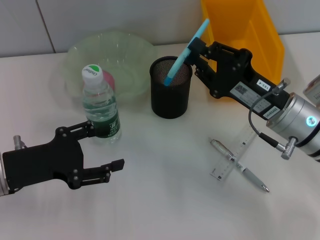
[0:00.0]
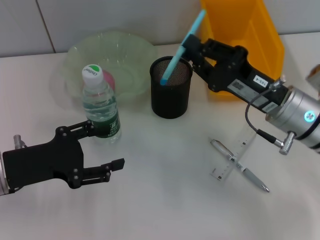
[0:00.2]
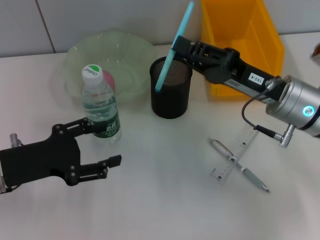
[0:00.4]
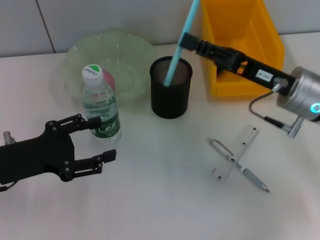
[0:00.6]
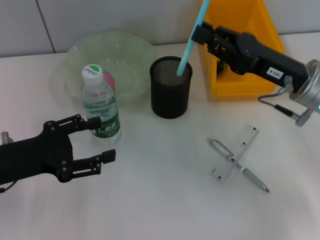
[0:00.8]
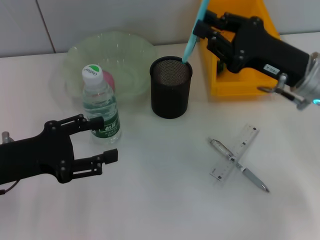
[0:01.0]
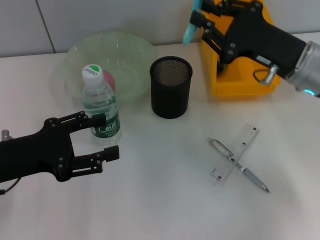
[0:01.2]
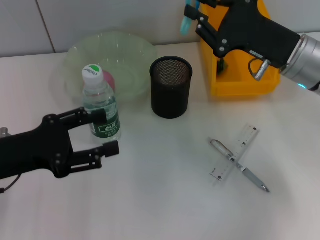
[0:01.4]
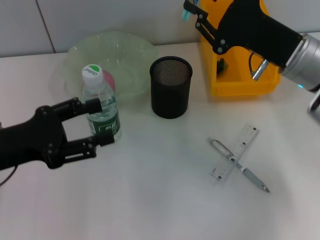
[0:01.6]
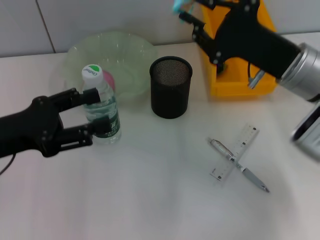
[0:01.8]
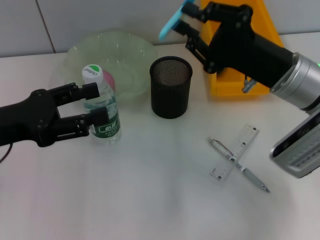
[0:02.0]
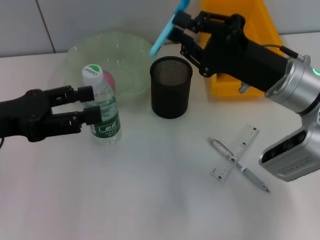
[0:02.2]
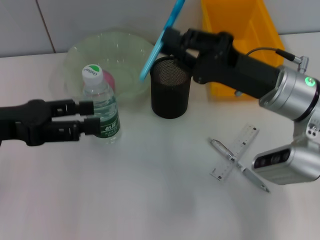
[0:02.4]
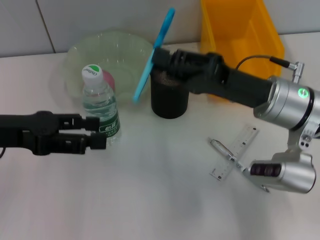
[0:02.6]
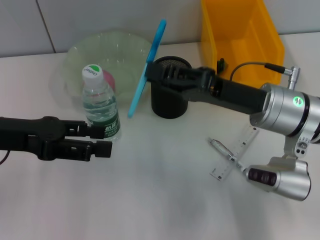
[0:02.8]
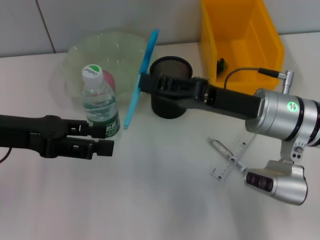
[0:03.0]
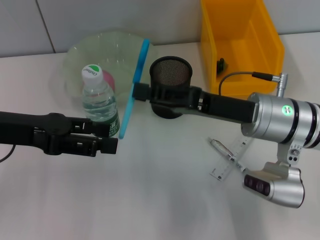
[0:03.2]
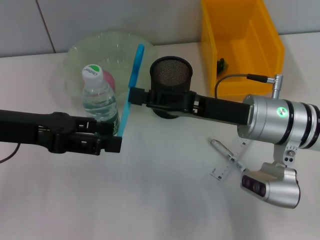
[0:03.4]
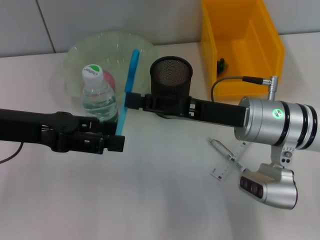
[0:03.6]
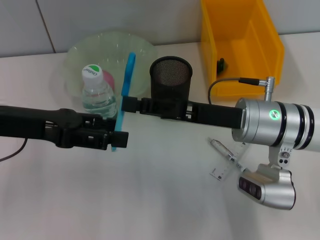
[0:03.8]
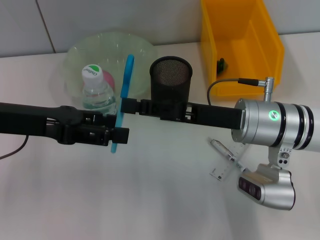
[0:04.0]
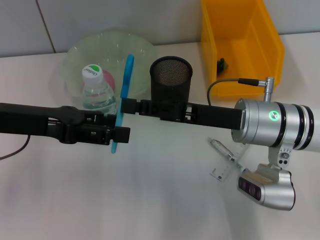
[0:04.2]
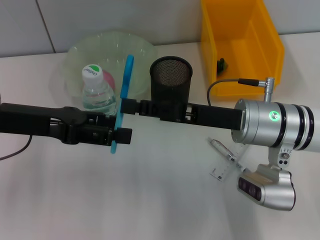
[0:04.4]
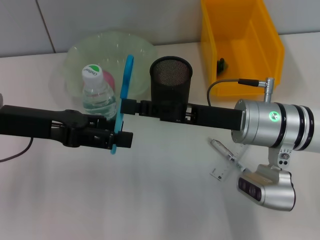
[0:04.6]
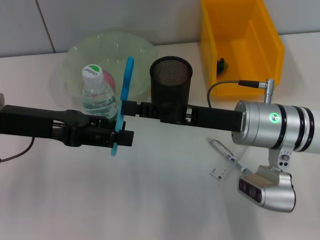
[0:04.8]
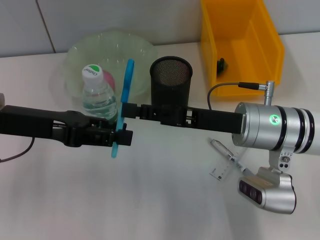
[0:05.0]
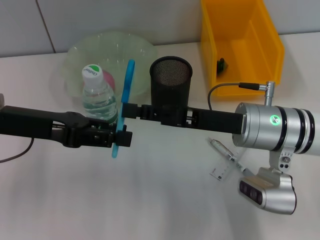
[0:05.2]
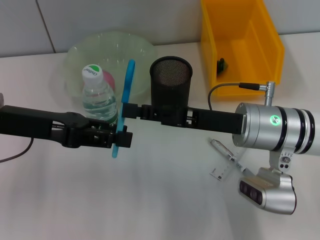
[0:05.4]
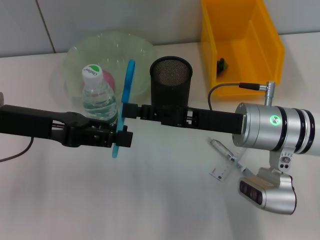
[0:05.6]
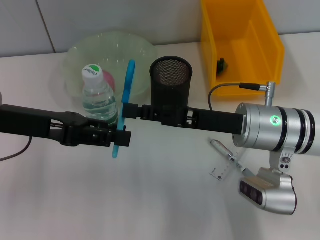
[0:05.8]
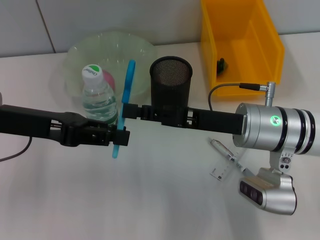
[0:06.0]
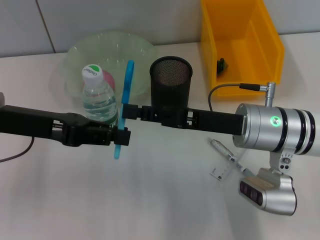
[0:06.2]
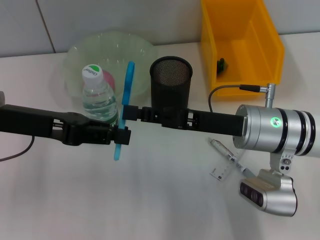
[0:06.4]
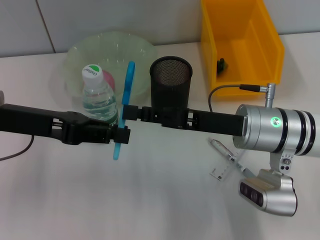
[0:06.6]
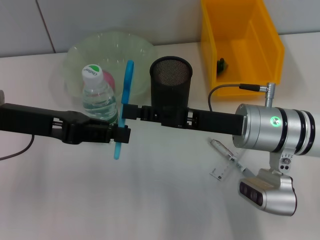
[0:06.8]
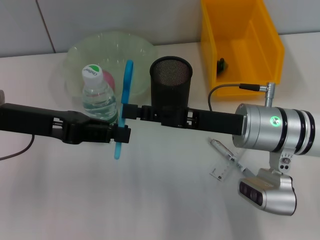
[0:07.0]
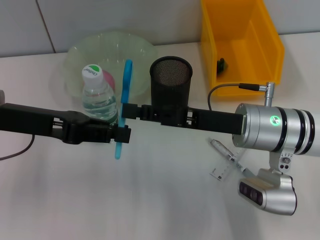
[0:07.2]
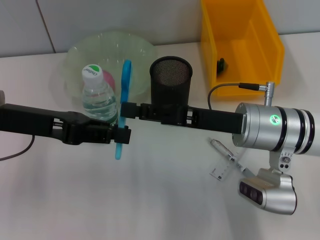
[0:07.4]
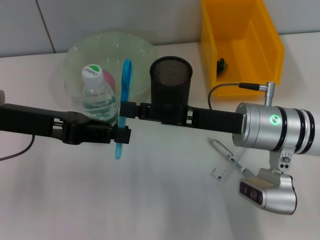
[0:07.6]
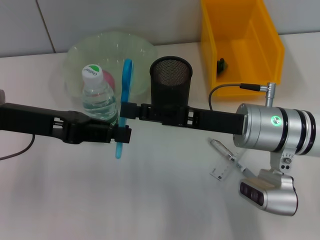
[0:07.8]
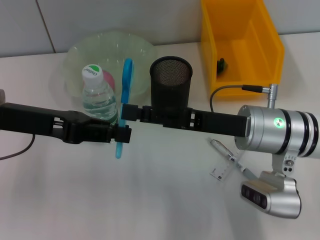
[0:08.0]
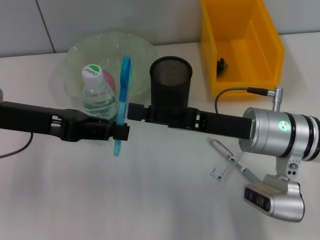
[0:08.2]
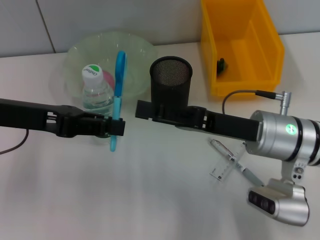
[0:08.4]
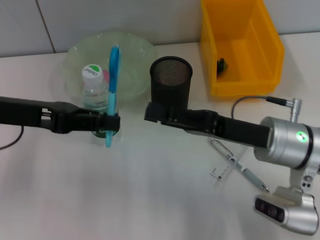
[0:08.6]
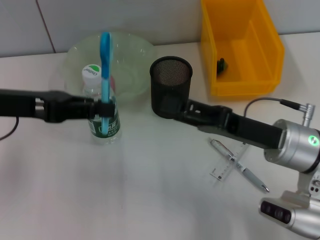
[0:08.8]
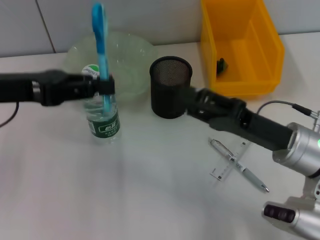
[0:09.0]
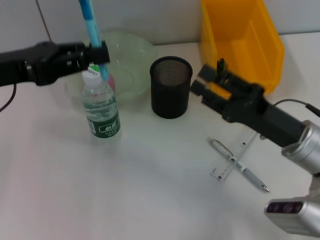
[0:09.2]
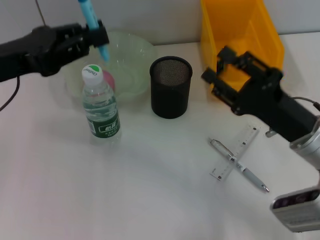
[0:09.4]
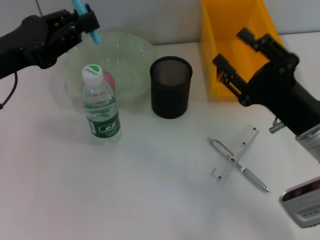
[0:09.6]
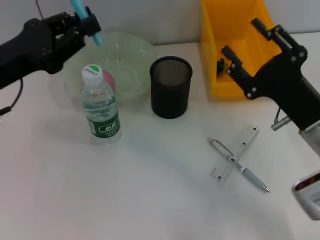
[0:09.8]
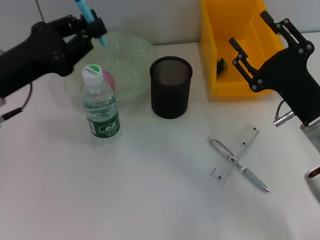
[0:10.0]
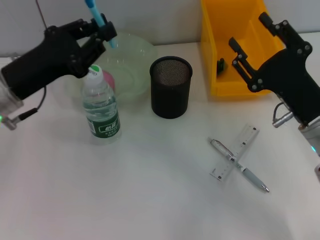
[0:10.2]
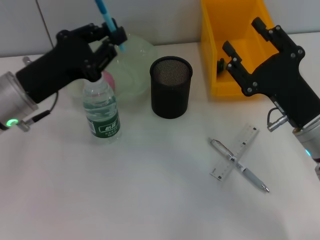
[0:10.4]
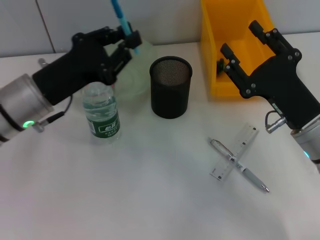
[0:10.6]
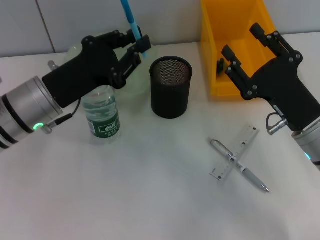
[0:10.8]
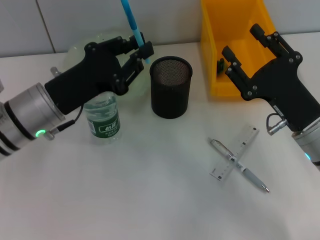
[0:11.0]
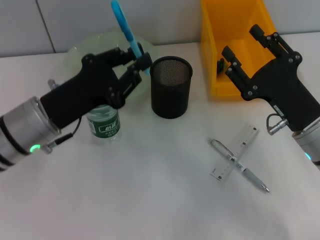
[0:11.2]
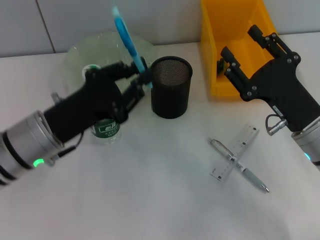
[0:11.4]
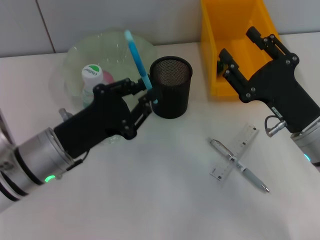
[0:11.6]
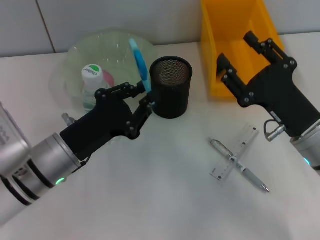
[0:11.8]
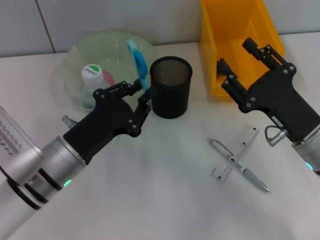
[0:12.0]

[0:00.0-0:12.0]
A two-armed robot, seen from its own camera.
Step, 0:00.0 to 0:08.4: Pass the blue scissors from the right hand to the left hand.
0:00.0 to 0:01.6: The right gripper heads upward, covering about 5 cm.
0:01.6 to 0:03.0: The left gripper moves approximately 5 cm. The right gripper changes place by roughly 5 cm.
0:03.0 to 0:04.4: There are only small adjustments of the grippers.
0:04.4 to 0:06.0: The left gripper closes up.
0:06.0 to 0:07.6: The two grippers keep their place.
0:07.6 to 0:09.0: The right gripper shifts by about 5 cm.
0:09.0 to 0:10.4: The left gripper is displaced downward by roughly 5 cm.
0:10.4 to 0:12.0: The left gripper goes about 10 cm downward, backward and to the right.

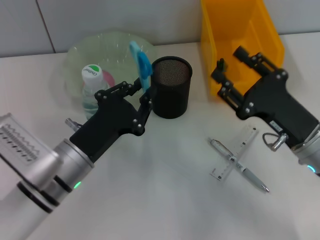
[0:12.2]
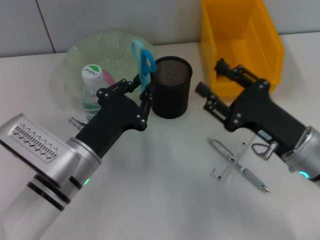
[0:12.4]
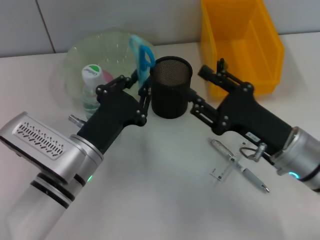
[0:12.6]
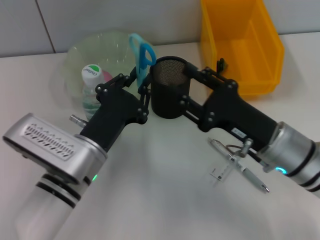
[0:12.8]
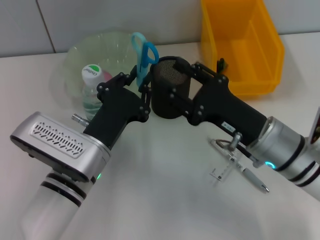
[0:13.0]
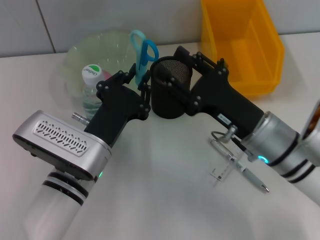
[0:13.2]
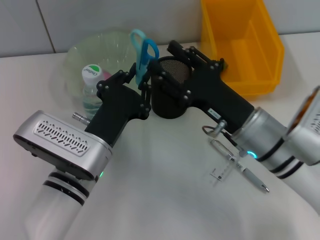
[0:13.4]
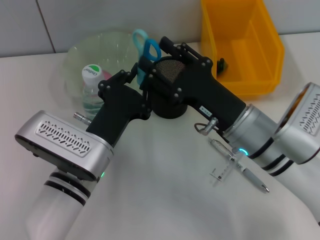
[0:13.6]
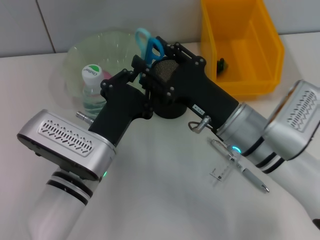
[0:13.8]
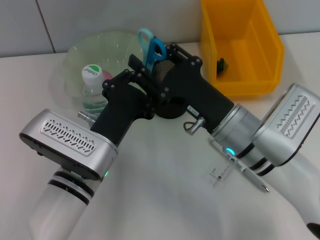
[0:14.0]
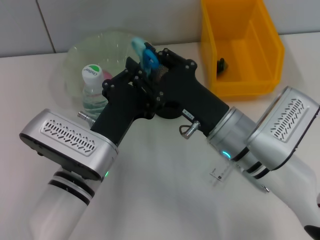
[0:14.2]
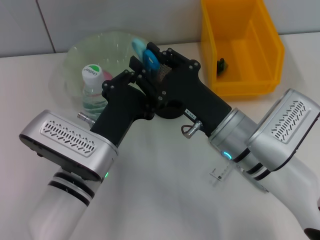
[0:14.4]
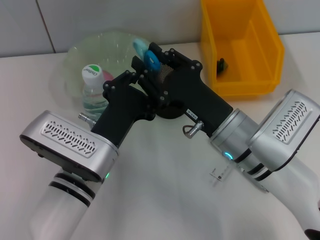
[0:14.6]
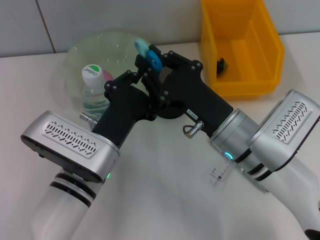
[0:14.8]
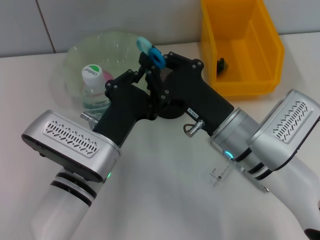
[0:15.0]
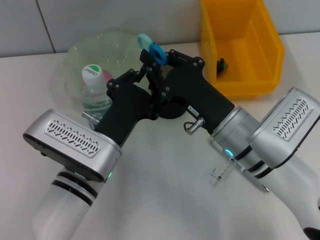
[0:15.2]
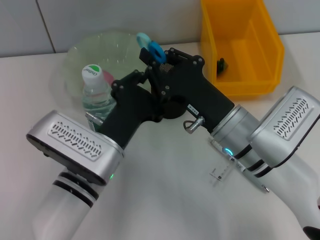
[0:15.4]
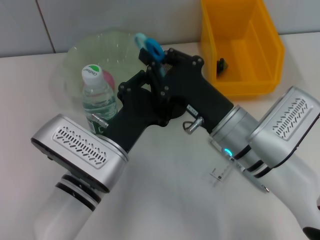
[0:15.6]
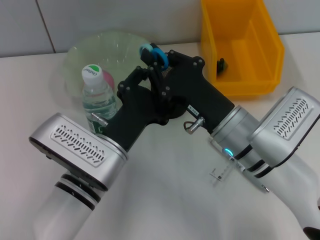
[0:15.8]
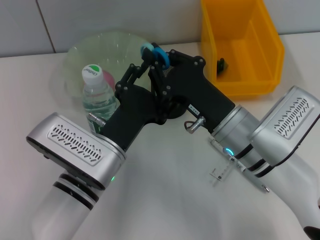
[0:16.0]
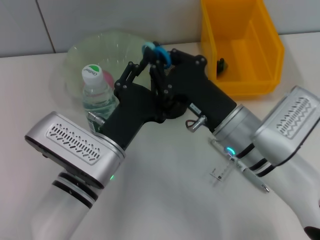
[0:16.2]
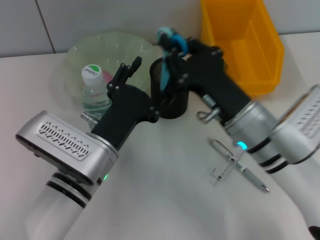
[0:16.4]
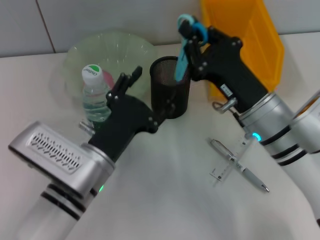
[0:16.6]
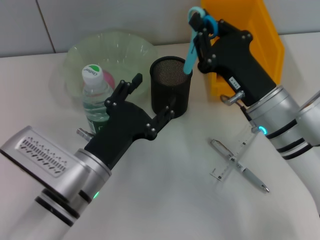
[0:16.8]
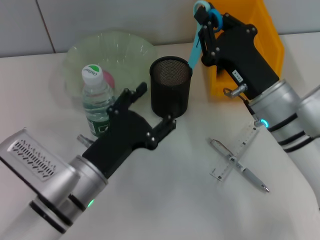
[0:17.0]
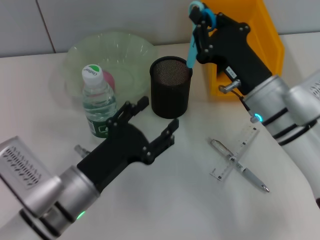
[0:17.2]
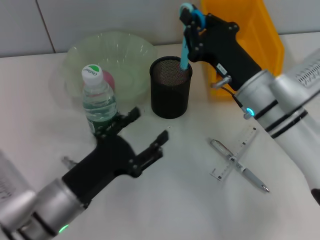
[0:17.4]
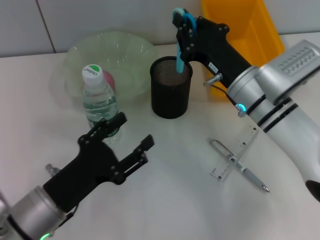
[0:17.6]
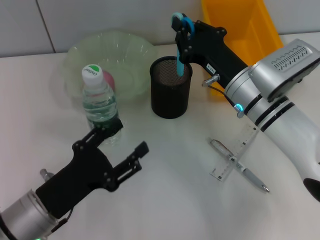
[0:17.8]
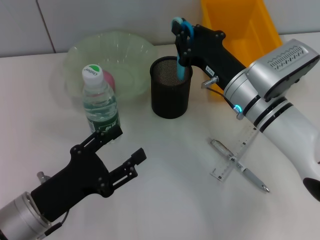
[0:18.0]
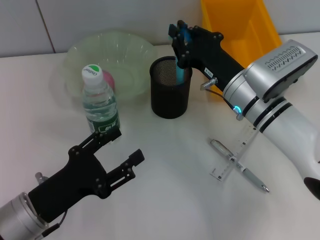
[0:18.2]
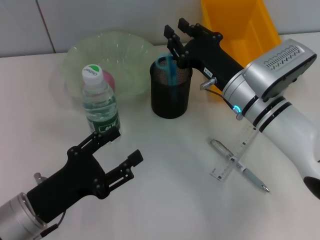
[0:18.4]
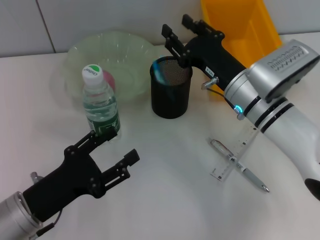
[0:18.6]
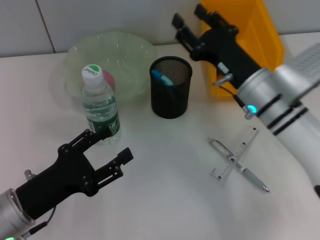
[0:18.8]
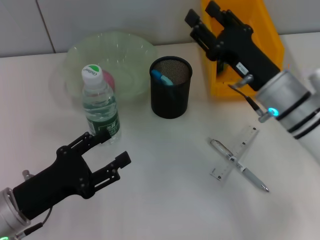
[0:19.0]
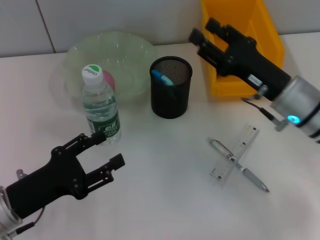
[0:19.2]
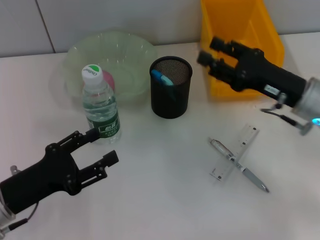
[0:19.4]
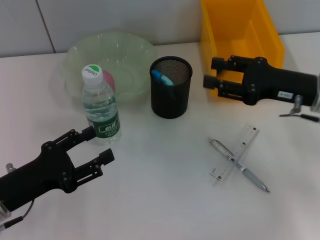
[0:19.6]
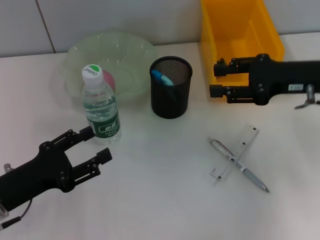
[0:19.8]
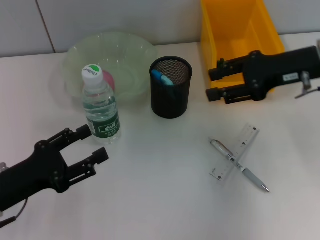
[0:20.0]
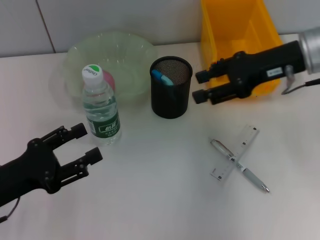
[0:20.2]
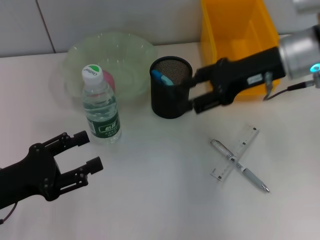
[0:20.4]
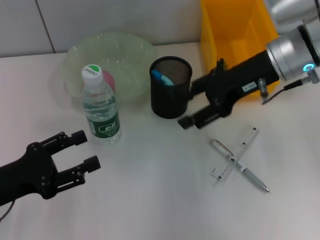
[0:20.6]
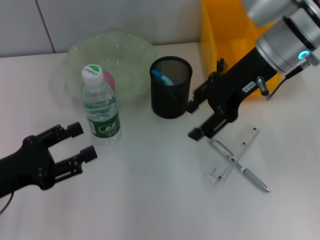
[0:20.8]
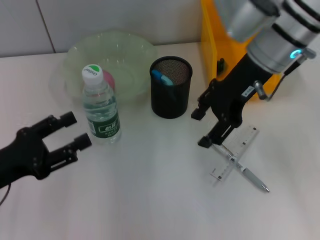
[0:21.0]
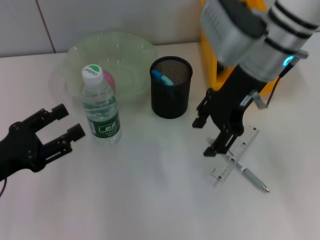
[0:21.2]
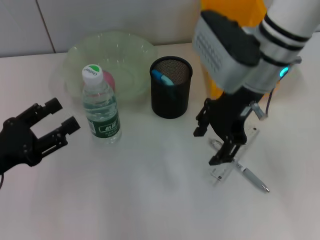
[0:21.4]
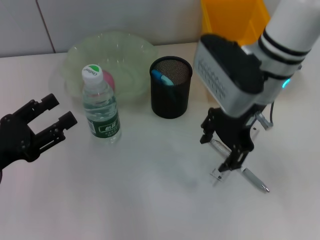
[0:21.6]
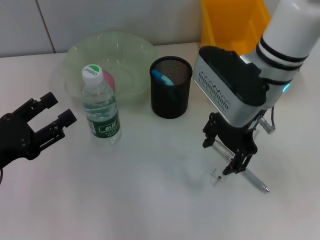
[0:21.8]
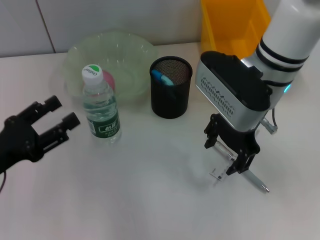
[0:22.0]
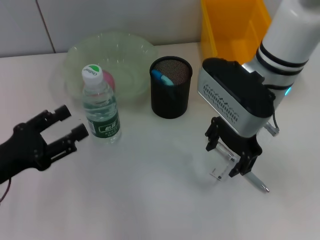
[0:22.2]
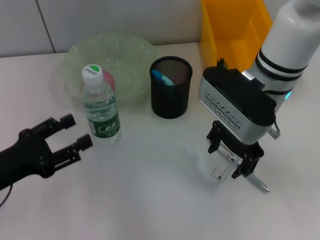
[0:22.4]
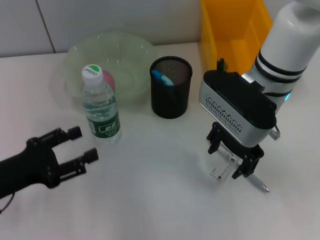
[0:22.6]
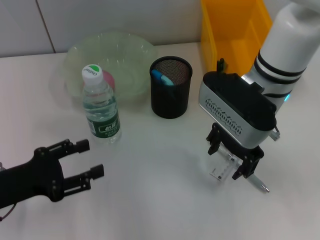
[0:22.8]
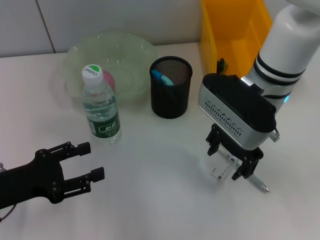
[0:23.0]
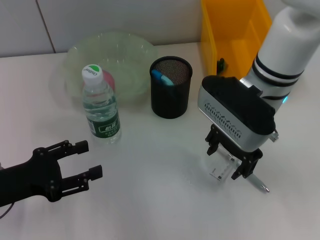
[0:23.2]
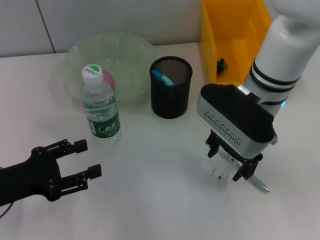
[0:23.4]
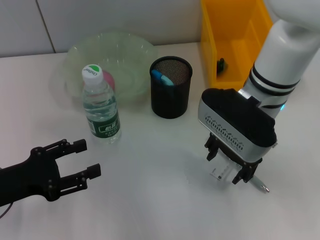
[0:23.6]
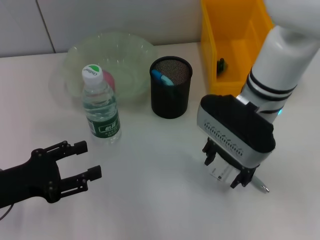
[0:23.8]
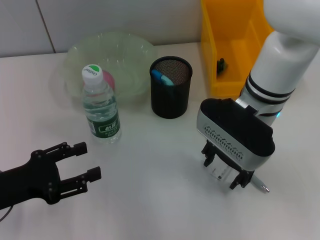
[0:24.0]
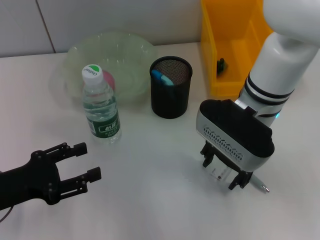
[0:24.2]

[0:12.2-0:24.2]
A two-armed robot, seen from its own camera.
Step, 0:12.2 to 0:16.6: Pass the blue scissors from the left hand to the right hand.
Step, 0:16.8 to 0:18.8: Place the blue scissors into the pen holder with the right hand.
0:12.2 to 0:13.8: The right gripper is displaced to the left by approximately 10 cm.
0:13.8 to 0:15.2: The right gripper closes its fingers.
0:15.2 to 0:16.6: The left gripper opens its fingers.
0:16.6 to 0:18.2: The left gripper is displaced to the left by approximately 10 cm. Meanwhile the right gripper shifts roughly 5 cm forward.
0:18.2 to 0:19.8: The right gripper shifts about 15 cm to the right and upward, and opens its fingers. The left gripper goes roughly 5 cm to the left.
0:19.8 to 0:21.2: The right gripper moves to the left and upward, about 15 cm.
0:21.2 to 0:22.6: The right gripper ends up approximately 5 cm from where it was.
0:22.6 to 0:24.2: The grippers stay close to where they were, moving slightly.
